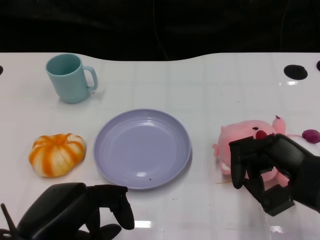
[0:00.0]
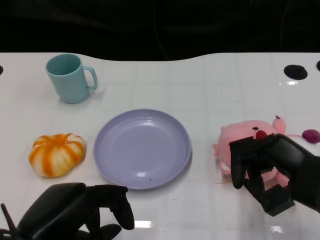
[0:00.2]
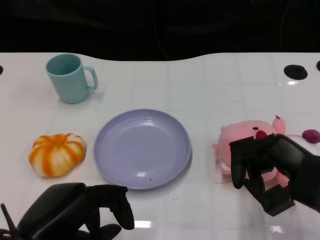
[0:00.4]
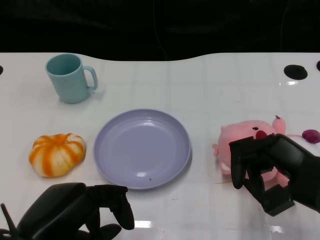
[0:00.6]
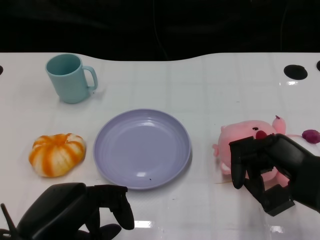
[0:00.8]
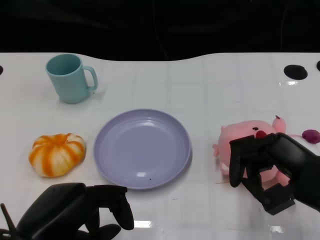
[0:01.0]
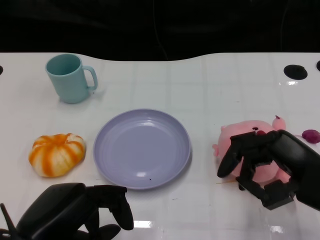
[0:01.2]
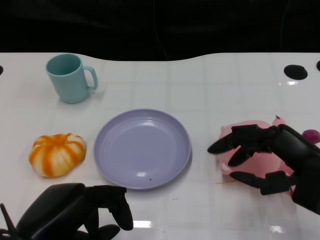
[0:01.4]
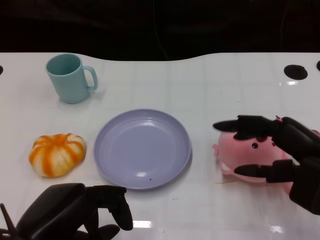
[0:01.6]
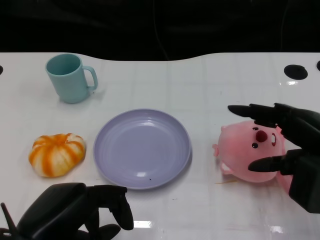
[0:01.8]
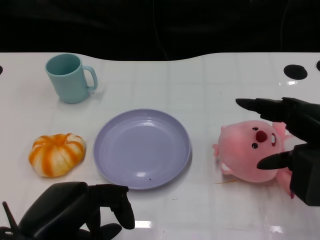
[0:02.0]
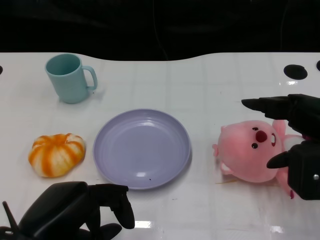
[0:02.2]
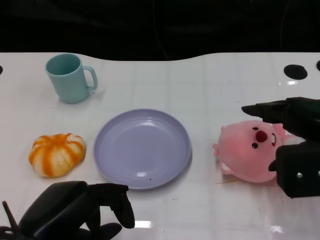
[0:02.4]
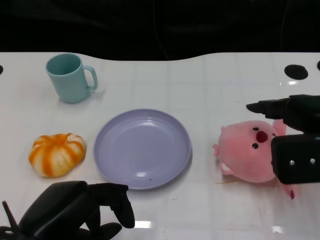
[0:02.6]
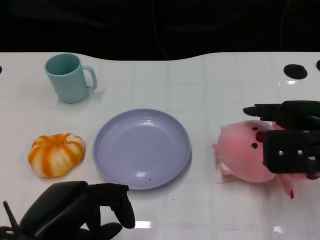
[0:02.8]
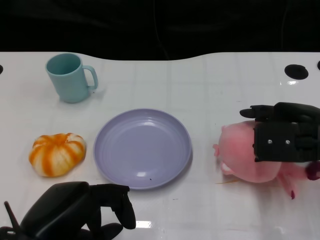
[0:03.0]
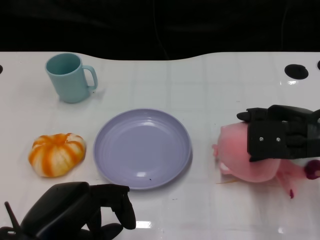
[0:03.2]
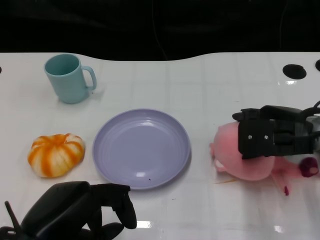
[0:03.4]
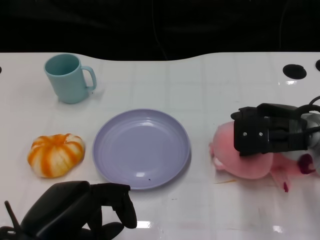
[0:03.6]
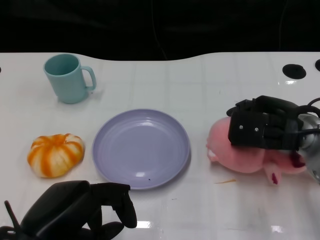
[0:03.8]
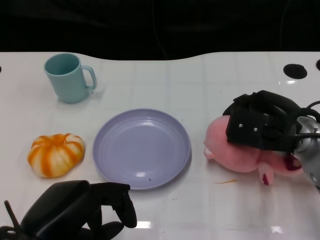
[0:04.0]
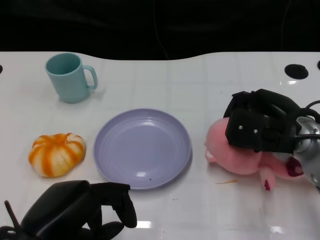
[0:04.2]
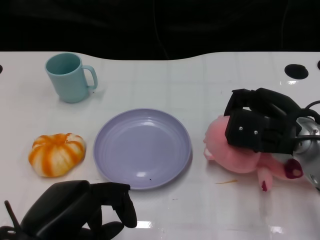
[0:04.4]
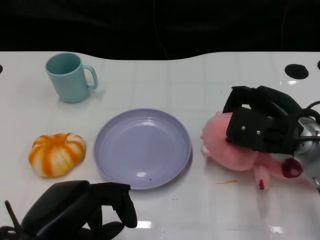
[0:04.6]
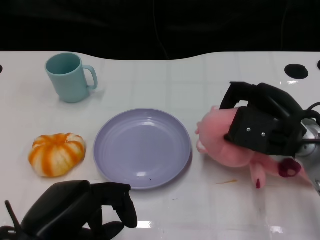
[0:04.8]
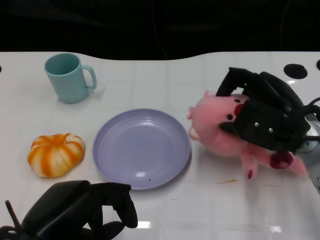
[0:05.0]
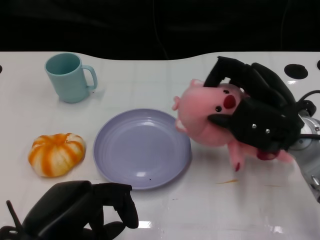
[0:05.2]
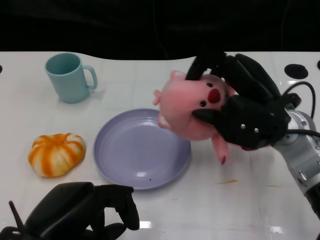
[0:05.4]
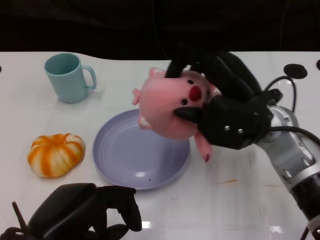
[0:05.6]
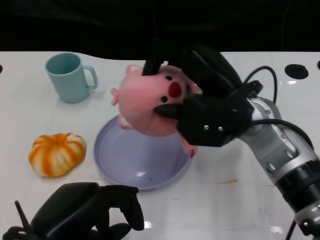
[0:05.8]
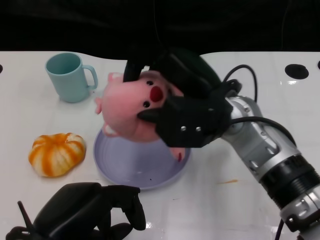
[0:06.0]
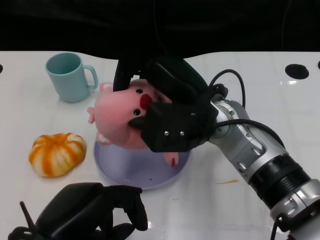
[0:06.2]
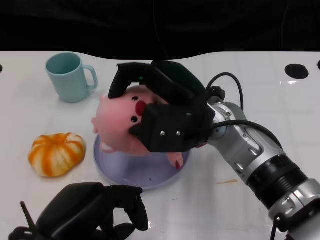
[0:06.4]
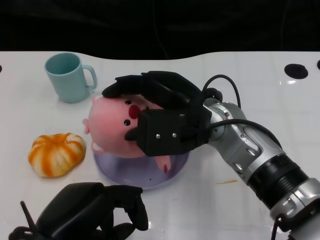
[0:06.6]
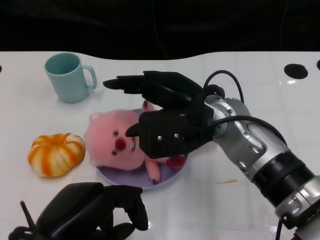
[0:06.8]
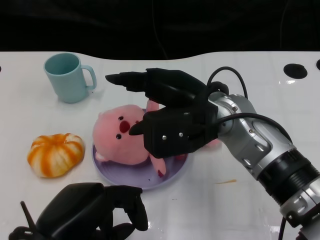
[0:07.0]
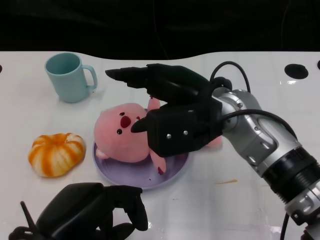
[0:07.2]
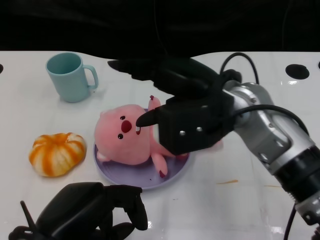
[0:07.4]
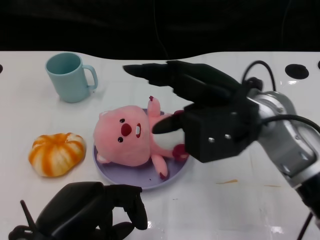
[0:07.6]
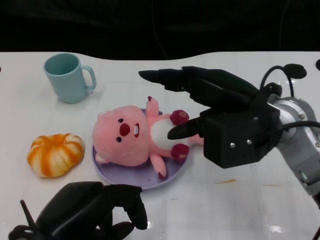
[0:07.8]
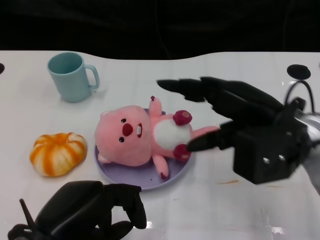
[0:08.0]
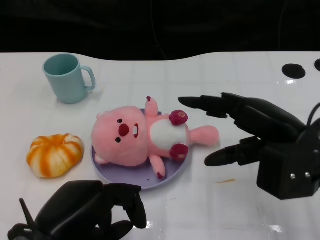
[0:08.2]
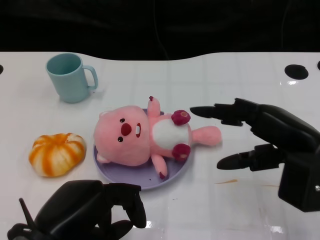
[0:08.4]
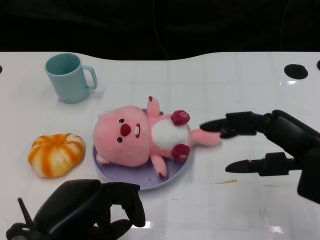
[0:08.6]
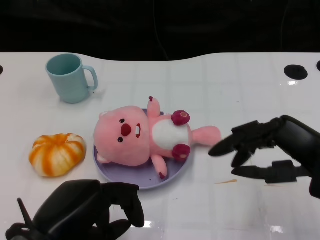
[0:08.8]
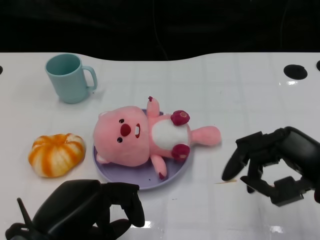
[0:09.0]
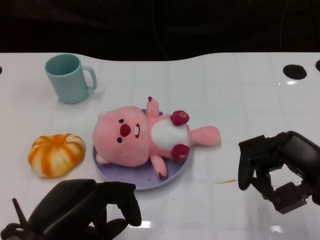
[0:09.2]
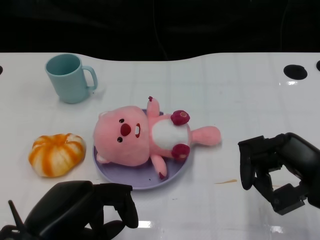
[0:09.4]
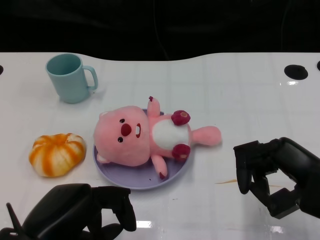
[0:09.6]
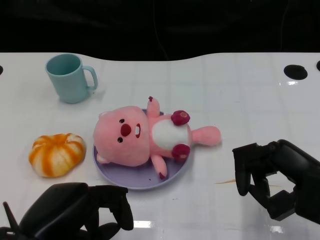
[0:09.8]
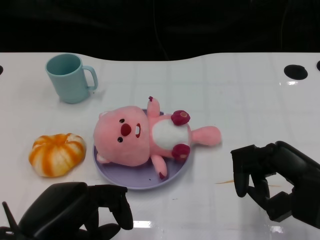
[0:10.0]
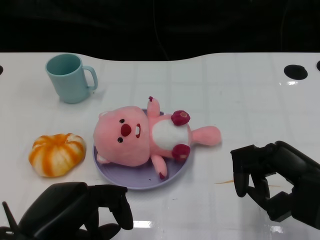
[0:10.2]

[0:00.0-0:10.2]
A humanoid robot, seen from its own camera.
Task of the whole recording: Pick up the doll on the other side of the plate and place it into the plate.
Step, 1.0 to 5.0 s: Grasp the pink doll with the right gripper.
Step, 5.2 to 7.6 s: Place the pink doll into the plate with the right gripper.
1.4 to 3.0 s: The right hand shifts roughly 10 cm forward.
3.0 to 4.4 s: The right hand changes place by approximately 5 cm.
4.4 to 5.8 s: The right hand goes roughly 10 cm to the left and upward.
7.2 to 8.8 s: The right hand shifts some 20 cm to the right and backward.
8.8 to 10.2 s: The hands make only small movements.

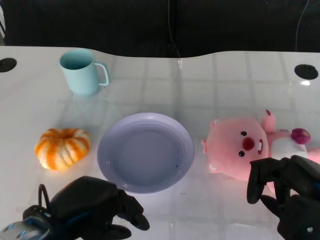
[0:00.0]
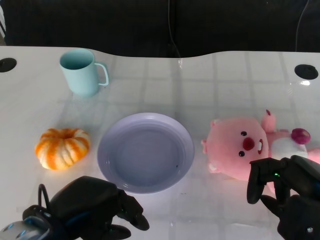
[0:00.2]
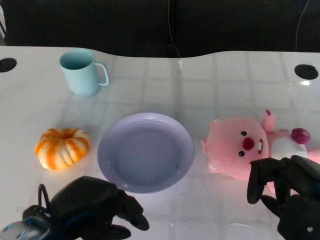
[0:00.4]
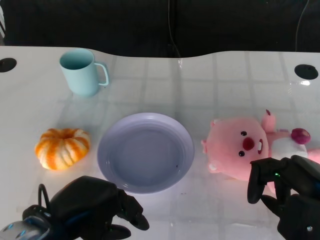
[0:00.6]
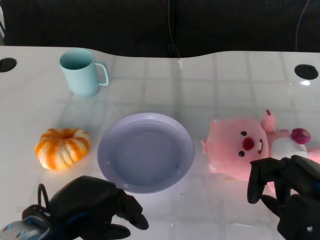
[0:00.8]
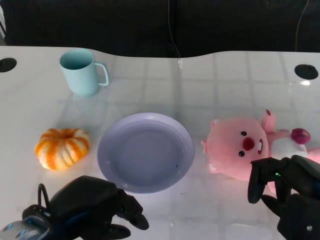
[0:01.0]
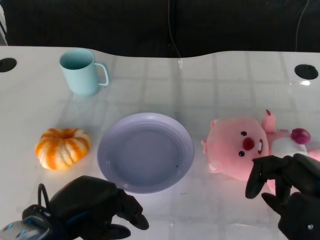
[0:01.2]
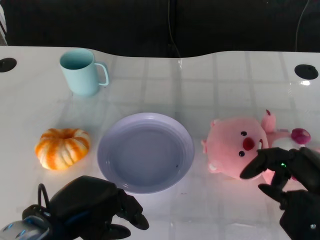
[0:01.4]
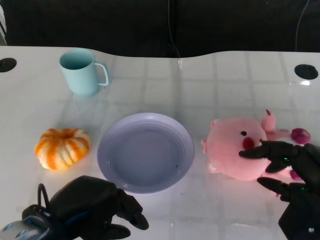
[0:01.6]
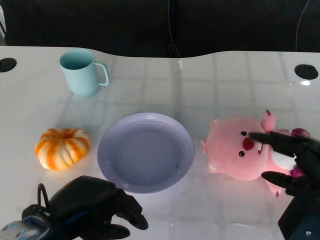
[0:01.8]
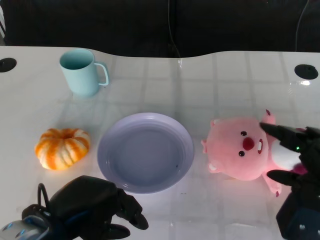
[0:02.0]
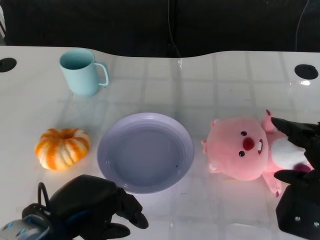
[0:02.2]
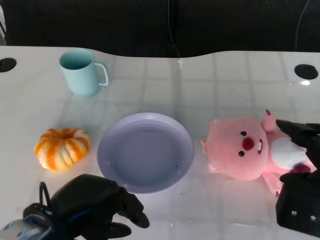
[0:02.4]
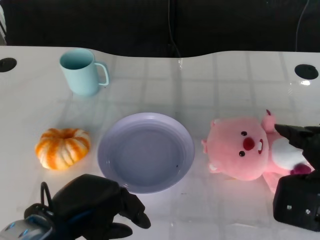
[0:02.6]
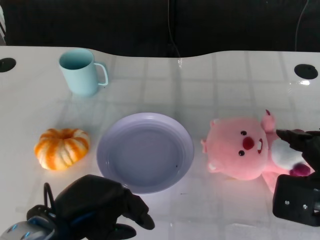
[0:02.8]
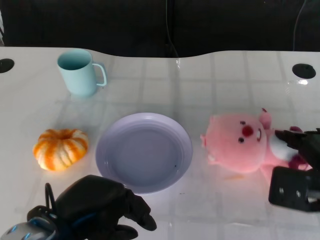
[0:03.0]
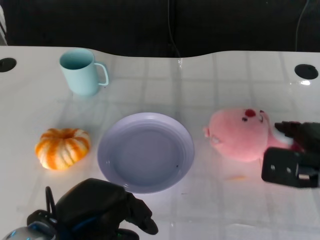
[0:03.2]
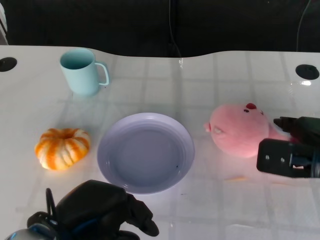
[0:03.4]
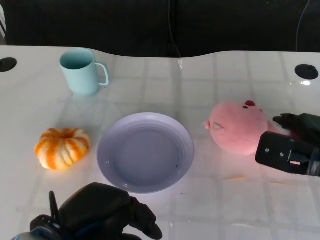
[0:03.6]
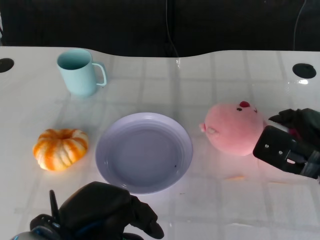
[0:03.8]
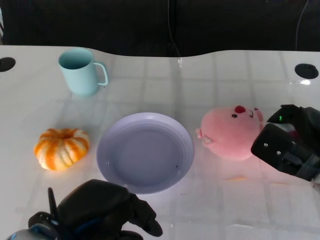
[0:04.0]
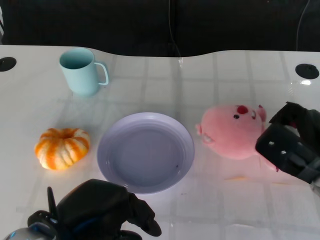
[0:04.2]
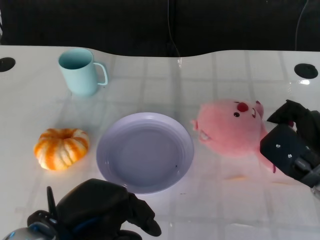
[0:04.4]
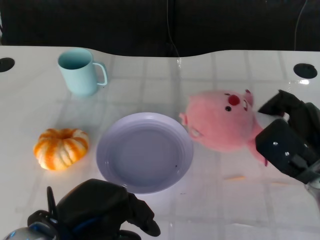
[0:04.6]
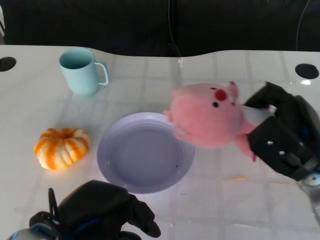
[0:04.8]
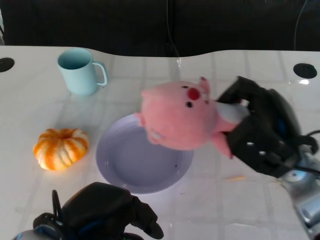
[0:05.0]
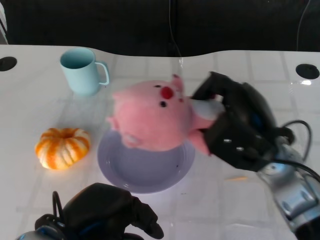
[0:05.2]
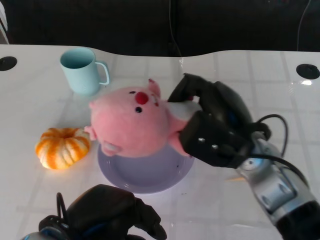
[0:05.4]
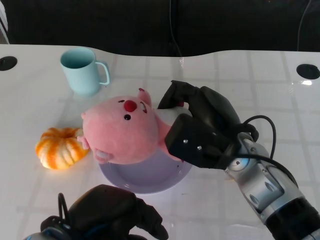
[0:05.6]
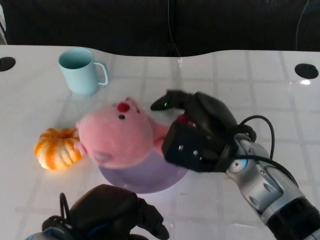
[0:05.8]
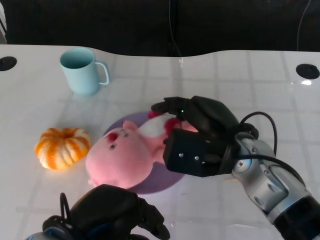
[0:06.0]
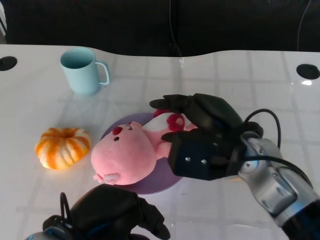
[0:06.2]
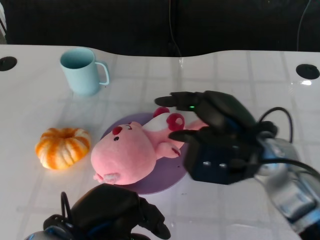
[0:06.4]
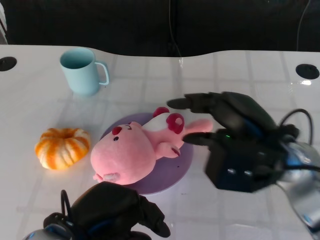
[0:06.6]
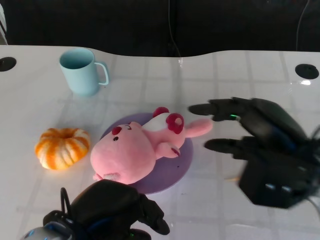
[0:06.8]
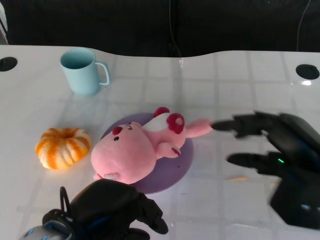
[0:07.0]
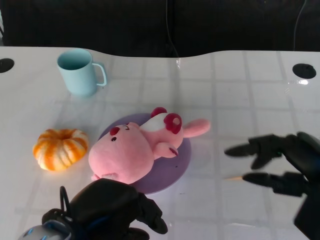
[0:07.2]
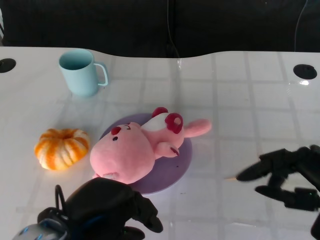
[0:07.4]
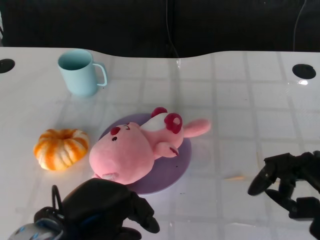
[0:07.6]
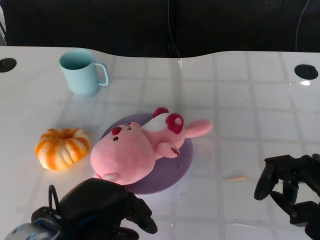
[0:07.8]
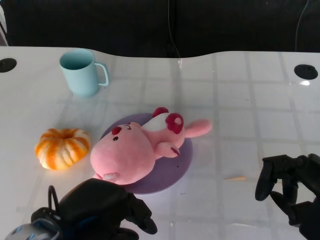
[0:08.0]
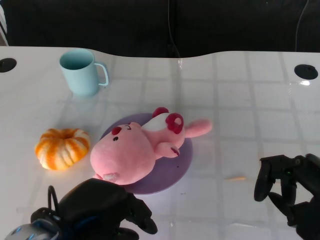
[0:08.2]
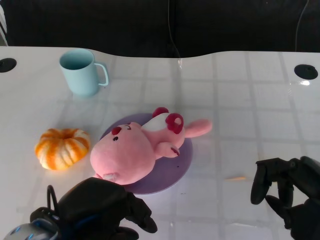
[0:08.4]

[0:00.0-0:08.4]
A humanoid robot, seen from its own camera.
Task of the whole recording: Pick up the doll on the other side of the plate and place it into the plate.
Step, 1.2 to 4.8 s: Grasp the pink doll with the right gripper.
Step, 5.0 to 6.4 s: Place the pink doll into the plate with the right gripper.
2.8 to 4.2 s: The right hand travels forward by some 5 cm.
4.2 to 5.6 s: The right hand goes roughly 15 cm to the left and upward.
5.6 to 7.0 s: The right hand is displaced to the right and backward by some 15 cm.
7.0 to 8.4 s: The right hand shifts by about 5 cm.

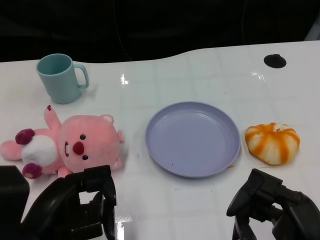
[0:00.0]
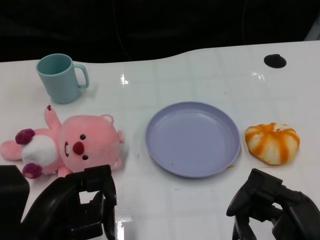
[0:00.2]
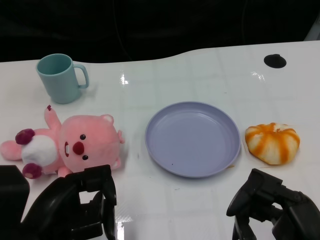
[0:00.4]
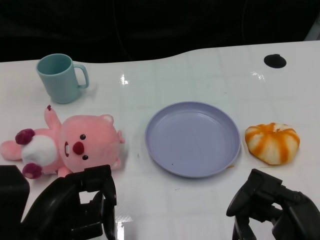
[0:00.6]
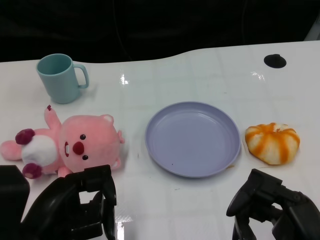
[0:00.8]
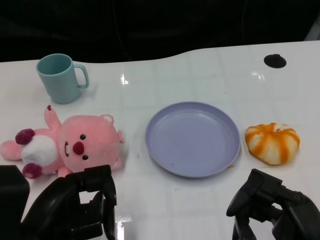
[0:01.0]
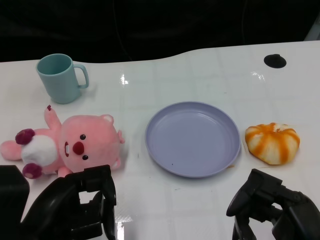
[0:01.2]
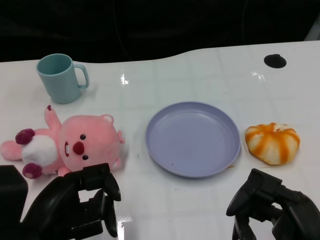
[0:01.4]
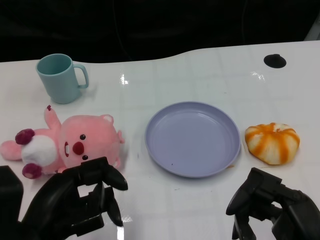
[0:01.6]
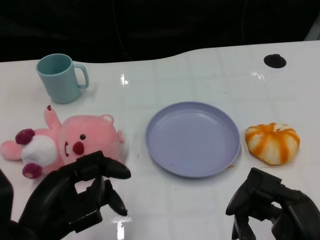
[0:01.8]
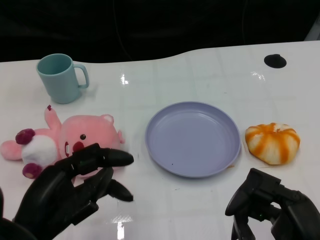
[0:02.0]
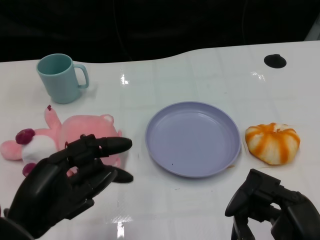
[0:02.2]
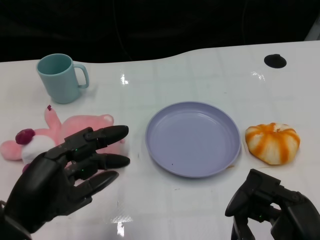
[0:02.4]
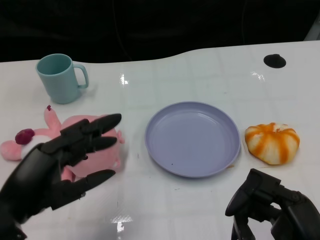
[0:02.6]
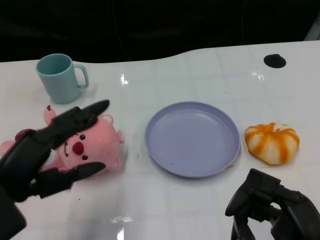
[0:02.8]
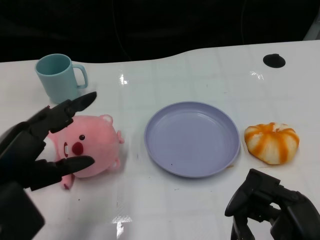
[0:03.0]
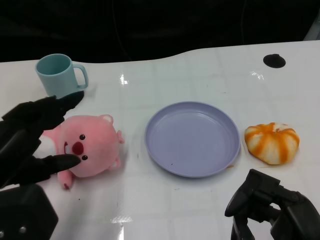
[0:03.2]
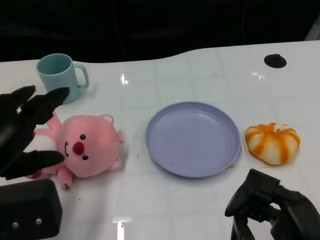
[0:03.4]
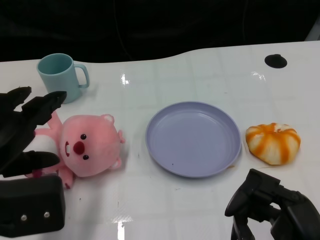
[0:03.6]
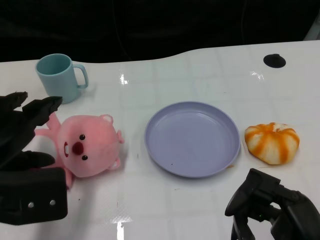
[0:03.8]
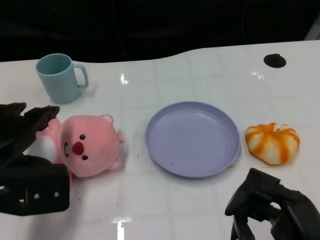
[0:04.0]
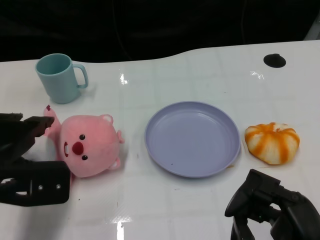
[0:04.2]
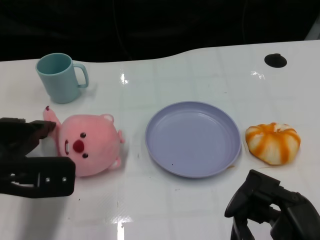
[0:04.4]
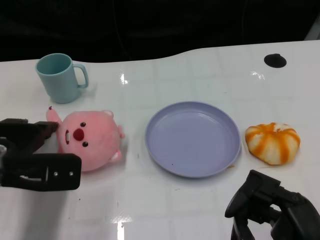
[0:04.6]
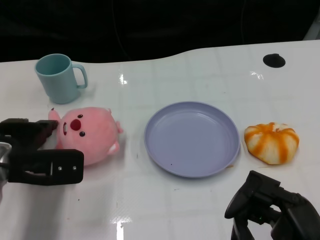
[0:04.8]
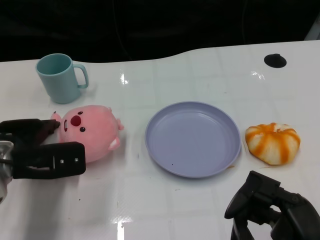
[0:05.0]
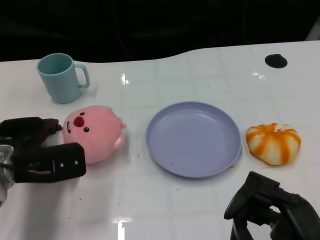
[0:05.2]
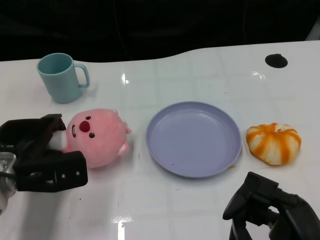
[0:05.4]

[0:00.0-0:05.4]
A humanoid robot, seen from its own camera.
Task of the whole recording: Pick up the doll on one side of the plate and place it into the plate.
1.4 to 2.8 s: The left hand shifts by approximately 5 cm.
2.8 to 4.0 s: The left hand changes place by about 5 cm.
4.0 to 5.4 s: The left hand is displaced downward and forward by about 10 cm.
